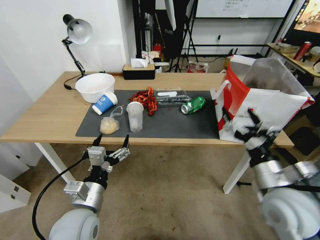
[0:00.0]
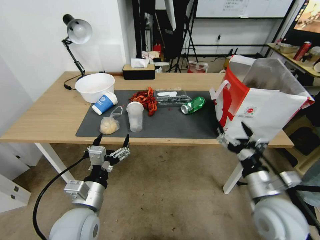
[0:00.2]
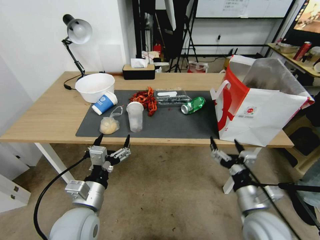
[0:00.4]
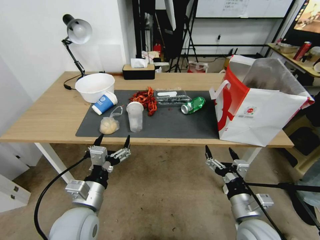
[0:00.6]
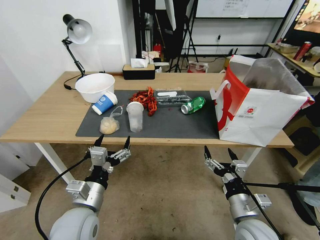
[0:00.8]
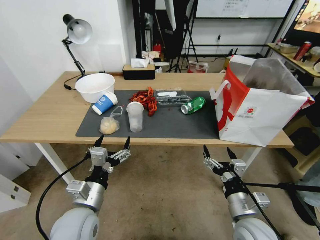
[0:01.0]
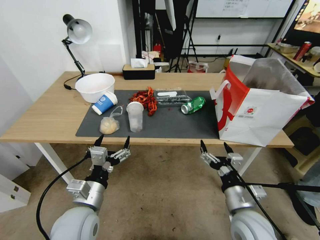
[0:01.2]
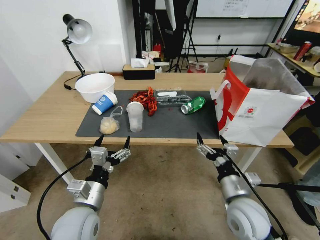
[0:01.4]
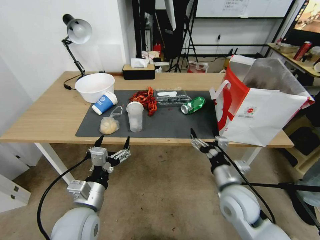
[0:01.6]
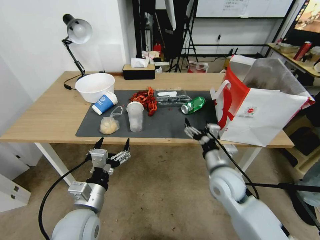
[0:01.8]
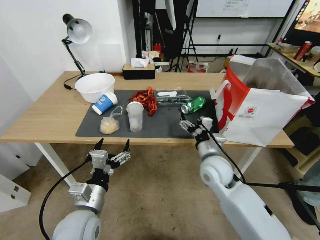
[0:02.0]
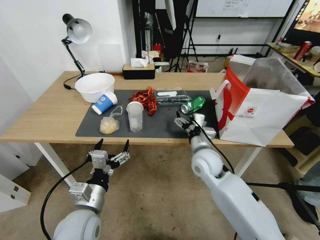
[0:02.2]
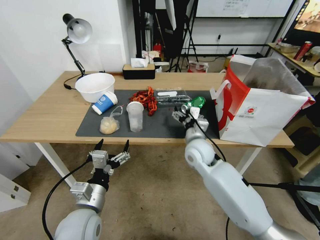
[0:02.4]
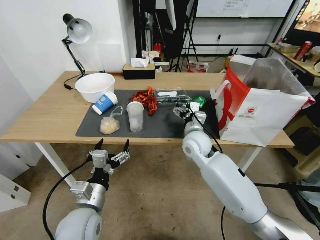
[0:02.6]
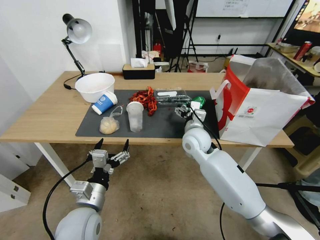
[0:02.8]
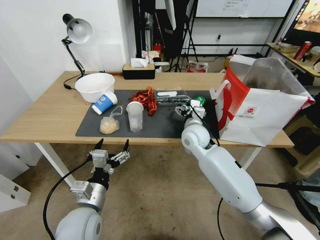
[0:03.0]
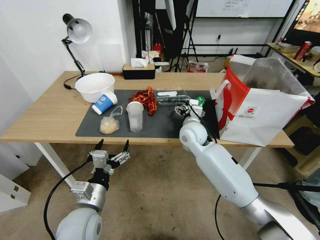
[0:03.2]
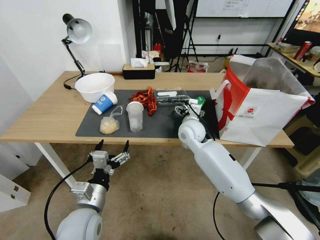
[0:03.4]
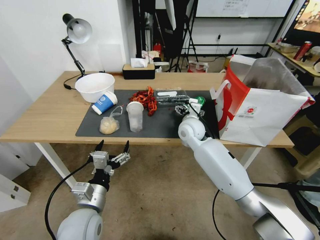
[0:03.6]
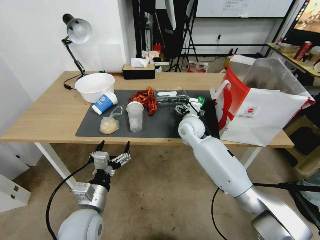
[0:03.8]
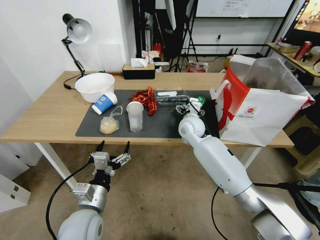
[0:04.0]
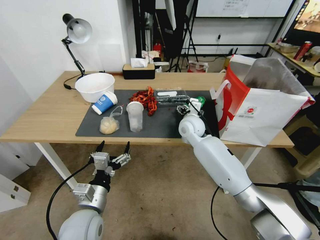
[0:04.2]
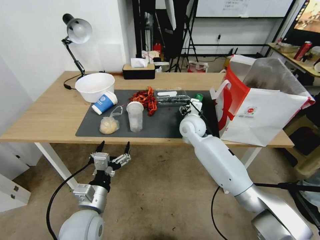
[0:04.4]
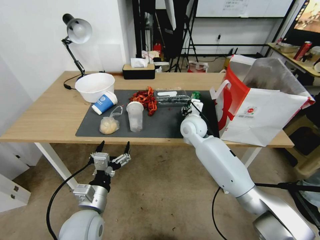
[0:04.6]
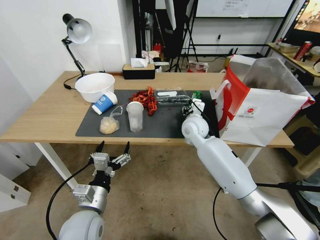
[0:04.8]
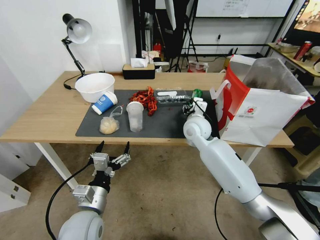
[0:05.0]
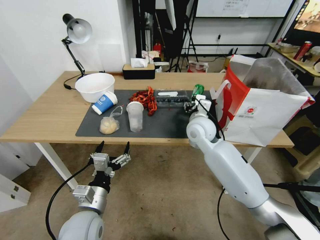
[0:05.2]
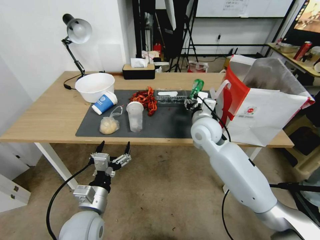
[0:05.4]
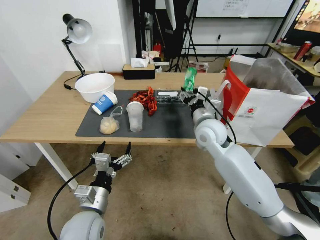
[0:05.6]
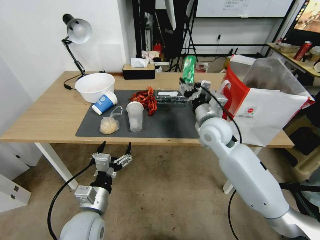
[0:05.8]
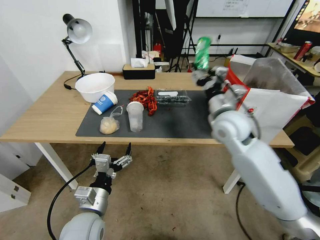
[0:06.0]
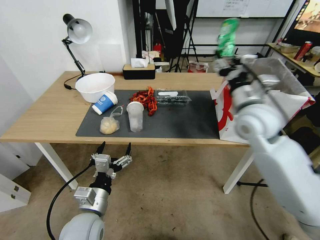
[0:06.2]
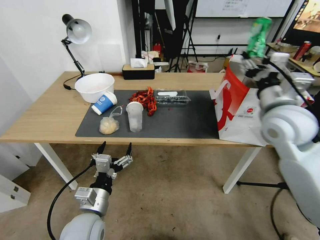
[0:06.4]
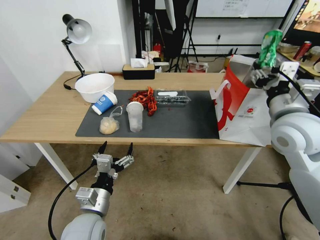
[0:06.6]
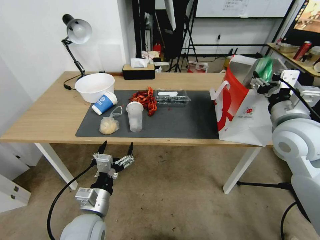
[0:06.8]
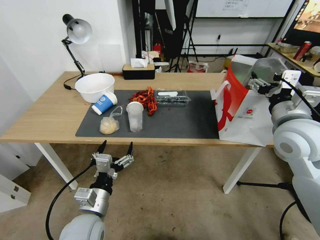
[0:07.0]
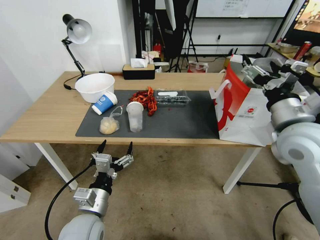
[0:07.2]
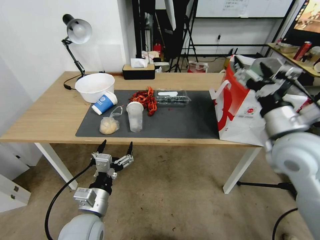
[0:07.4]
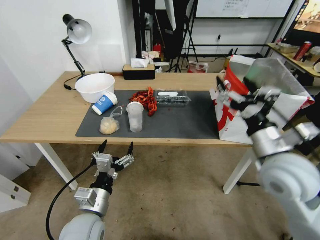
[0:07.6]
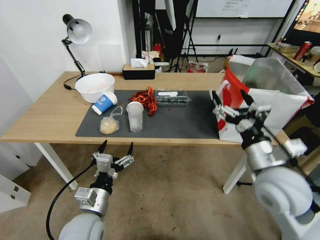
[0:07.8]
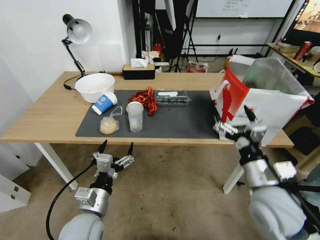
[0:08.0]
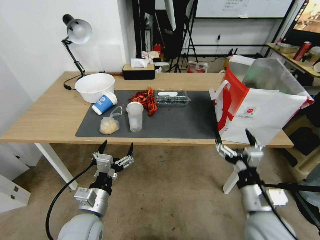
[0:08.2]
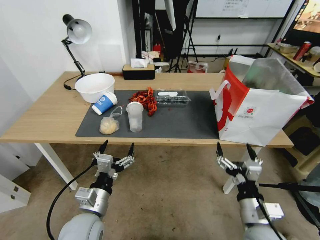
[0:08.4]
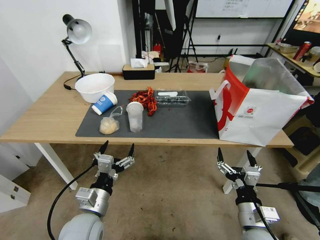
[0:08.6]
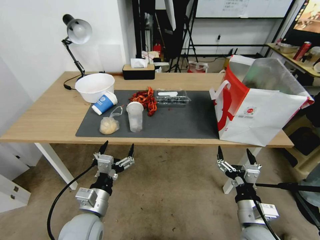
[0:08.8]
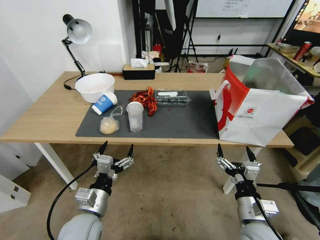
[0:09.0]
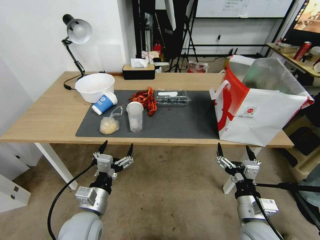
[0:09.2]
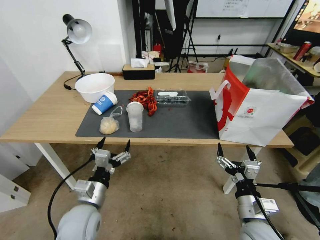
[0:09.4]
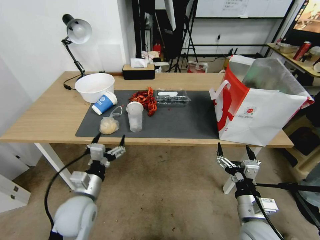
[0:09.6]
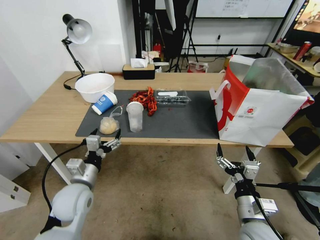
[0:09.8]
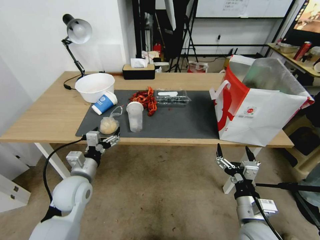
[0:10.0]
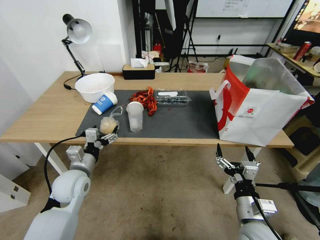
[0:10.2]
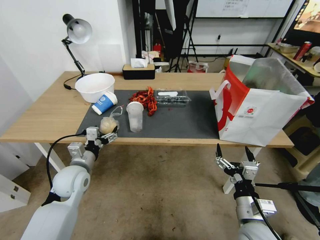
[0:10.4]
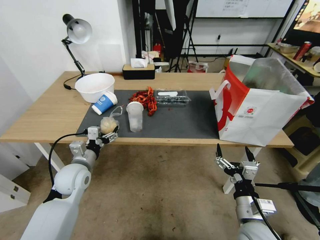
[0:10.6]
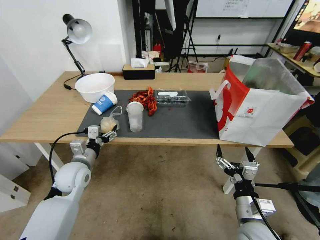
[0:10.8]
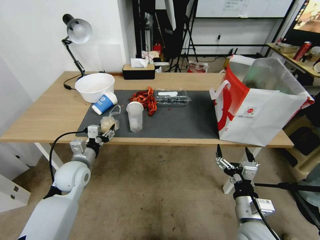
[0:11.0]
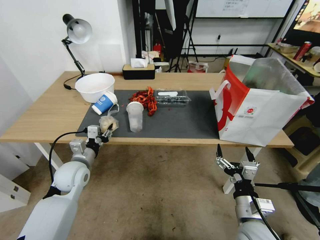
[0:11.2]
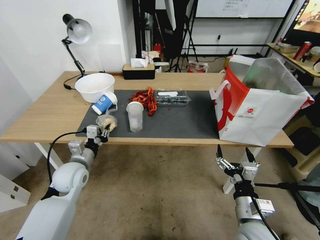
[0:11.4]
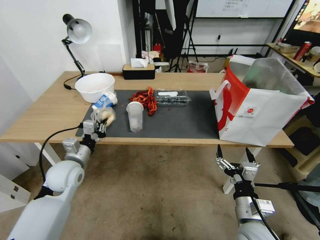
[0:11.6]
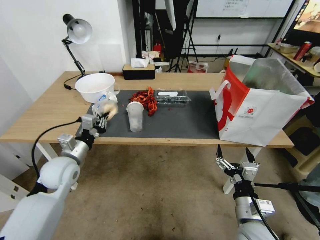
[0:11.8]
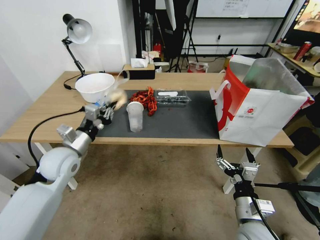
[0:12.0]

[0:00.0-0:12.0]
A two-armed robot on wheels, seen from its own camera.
0:00.0 to 0:01.6: The right gripper heads downward and to the left, covering some 10 cm.
0:01.6 to 0:03.0: The right gripper moves forward and to the left, approximately 20 cm.
0:03.0 to 0:04.4: The grippers stay close to where they were, moving slightly.
0:04.4 to 0:06.0: The right gripper shifts about 15 cm upward, backward and to the right.
0:06.0 to 0:07.6: The right gripper goes approximately 15 cm backward and to the right, and opens.
0:07.6 to 0:09.0: The right gripper travels downward and backward by approximately 20 cm.
0:09.0 to 0:10.4: The left gripper heads forward and to the left, covering some 15 cm.
0:10.4 to 0:12.0: The left gripper heads upward, covering roughly 5 cm, and closes.

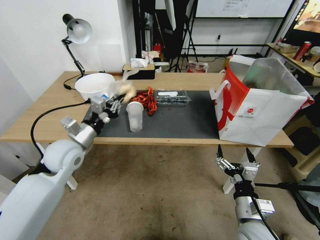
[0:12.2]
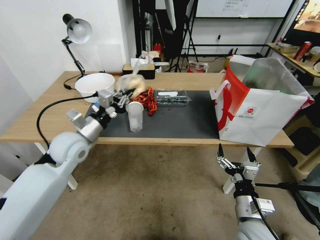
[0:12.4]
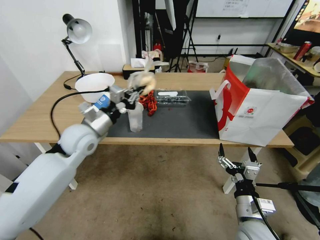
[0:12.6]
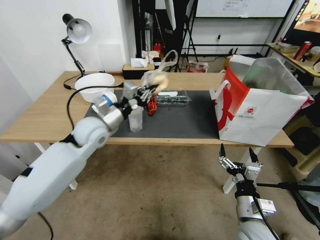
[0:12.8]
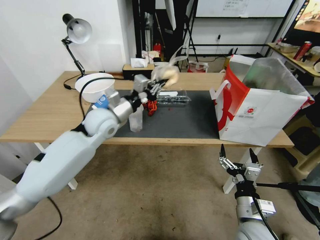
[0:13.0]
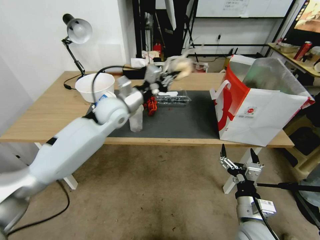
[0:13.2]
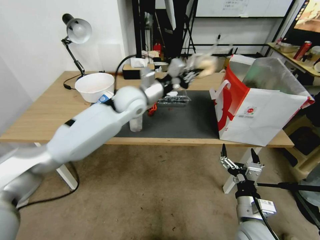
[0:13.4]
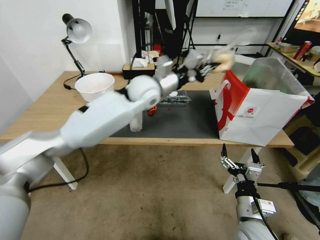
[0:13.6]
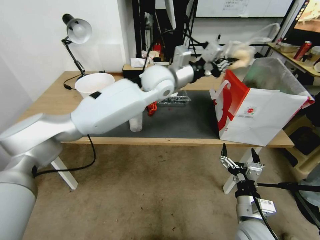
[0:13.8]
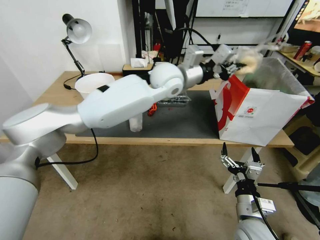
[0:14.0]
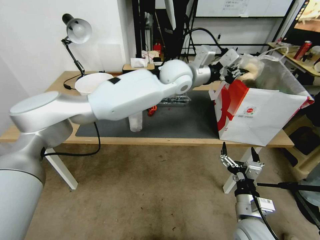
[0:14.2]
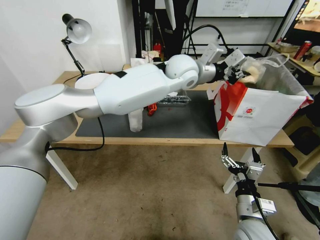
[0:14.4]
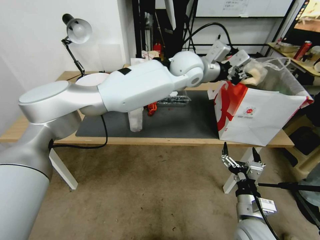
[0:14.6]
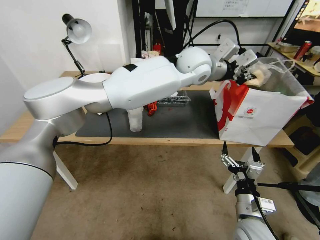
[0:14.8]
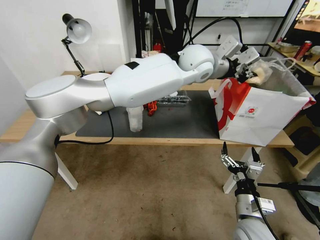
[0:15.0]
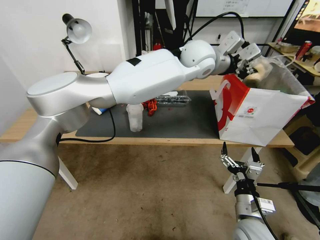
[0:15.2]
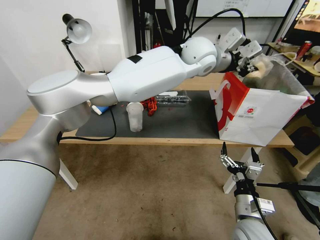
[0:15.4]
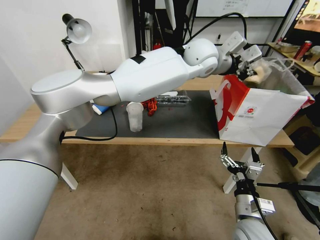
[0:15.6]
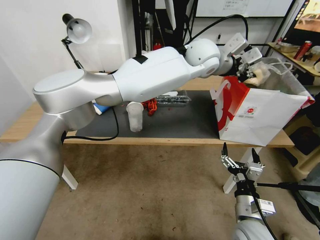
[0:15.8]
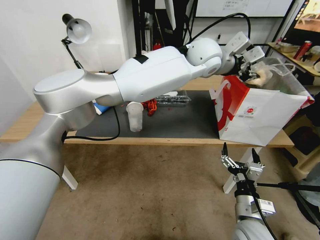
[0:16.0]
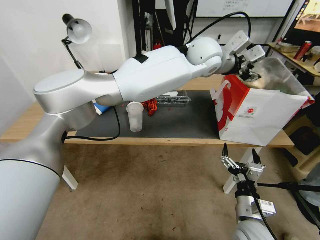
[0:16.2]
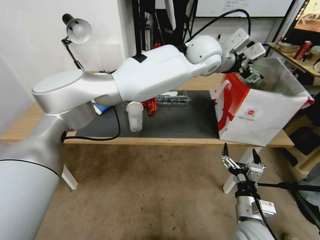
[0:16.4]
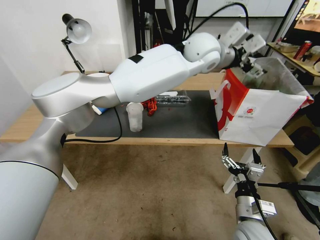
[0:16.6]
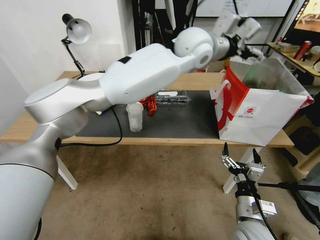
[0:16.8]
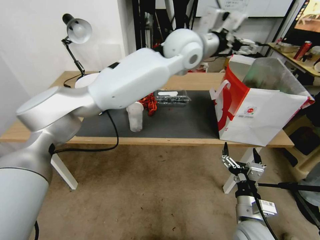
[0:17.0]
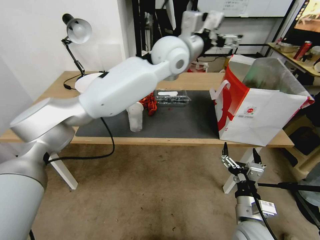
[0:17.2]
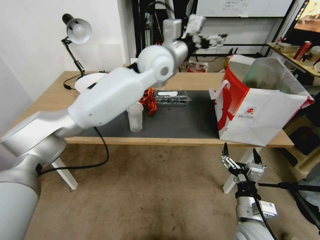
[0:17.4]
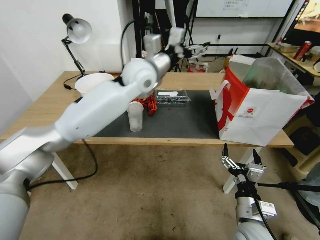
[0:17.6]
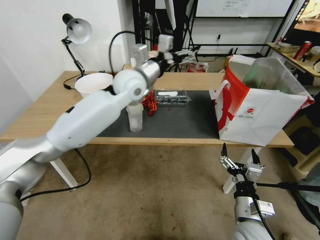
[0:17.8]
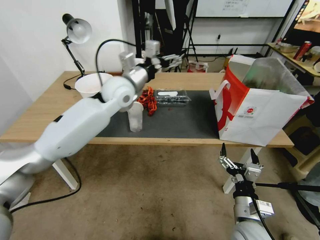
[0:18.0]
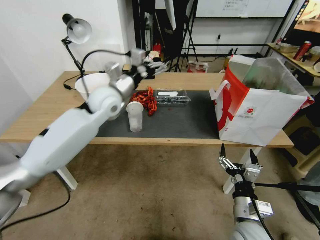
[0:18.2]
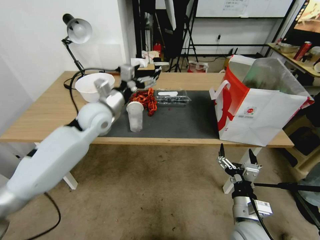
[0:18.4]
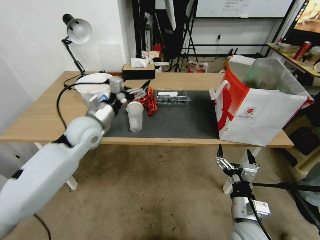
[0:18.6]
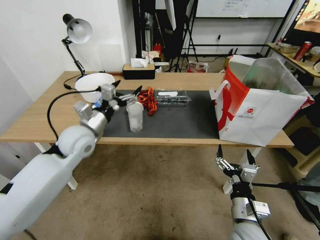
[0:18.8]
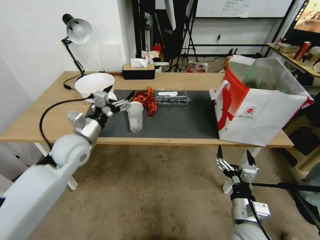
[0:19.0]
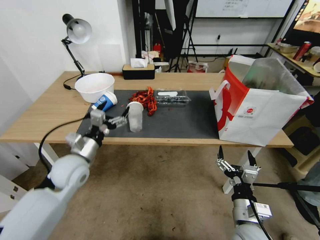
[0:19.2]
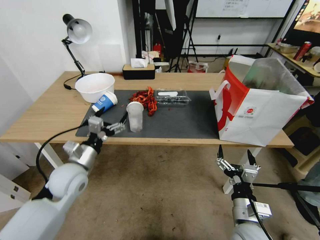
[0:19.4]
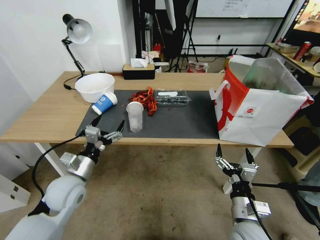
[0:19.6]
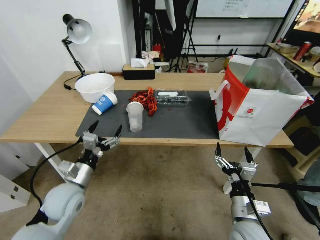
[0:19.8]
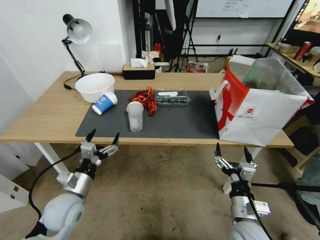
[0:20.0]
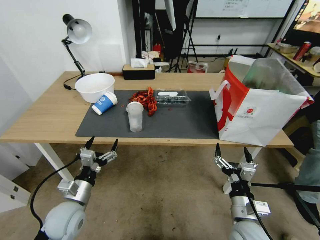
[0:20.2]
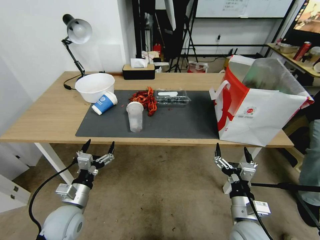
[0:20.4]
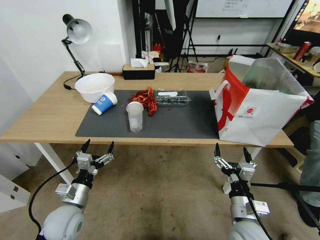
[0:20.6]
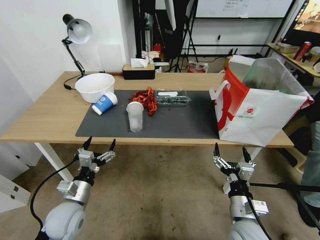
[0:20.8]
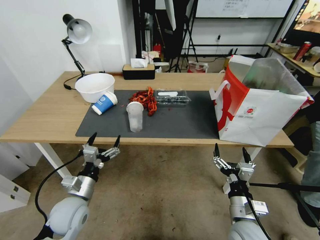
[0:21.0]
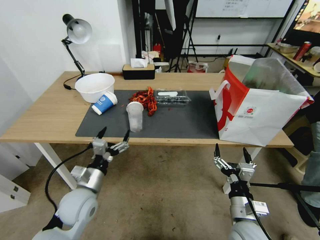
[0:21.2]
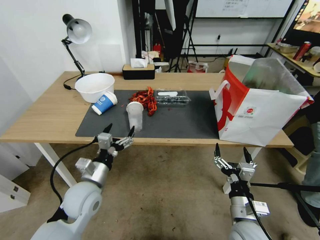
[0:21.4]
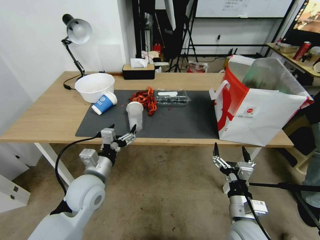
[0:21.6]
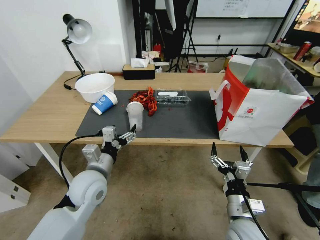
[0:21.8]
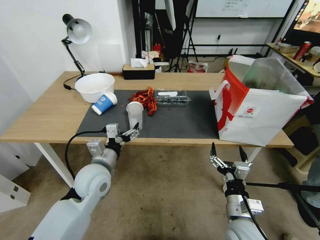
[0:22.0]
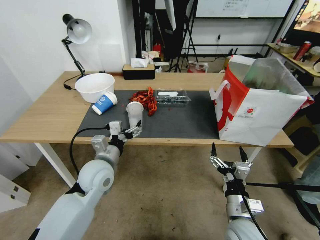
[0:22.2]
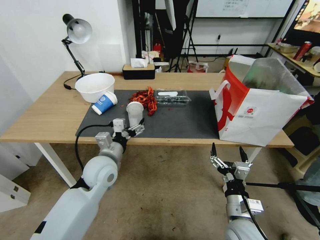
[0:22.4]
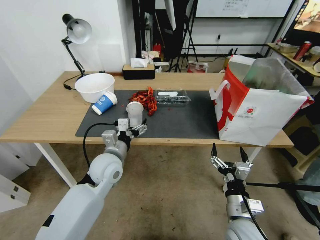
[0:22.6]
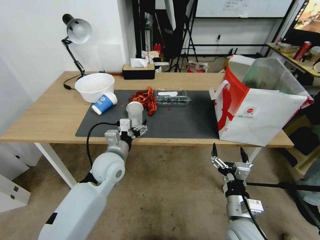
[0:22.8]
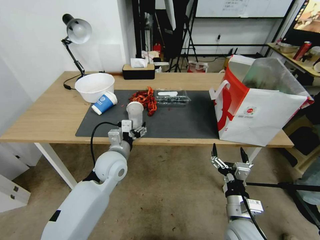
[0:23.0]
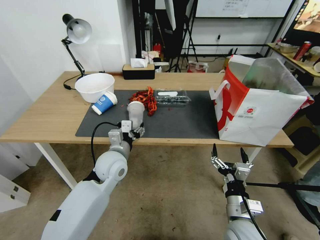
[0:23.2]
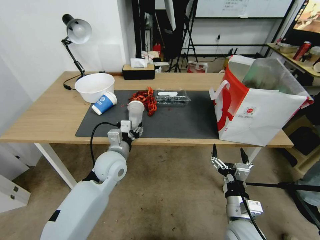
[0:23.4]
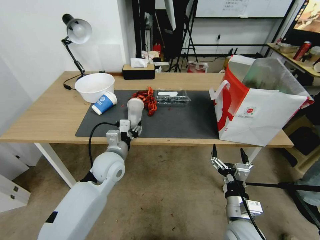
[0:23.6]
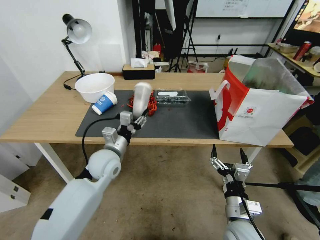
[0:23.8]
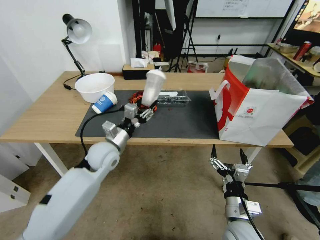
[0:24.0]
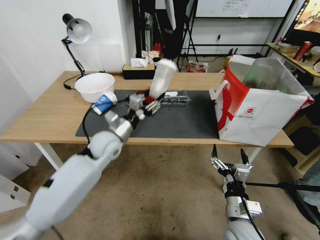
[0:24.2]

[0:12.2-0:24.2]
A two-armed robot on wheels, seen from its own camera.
0:12.2 to 0:13.8: The left gripper is displaced to the right, forward and upward by some 35 cm.
0:13.8 to 0:15.2: The left gripper moves to the right and upward, roughly 10 cm.
0:15.2 to 0:16.6: The left gripper opens.
0:16.6 to 0:18.2: The left gripper moves to the left and downward, roughly 30 cm.
0:18.2 to 0:19.8: The left gripper heads backward, downward and to the left, covering about 30 cm.
0:21.2 to 0:22.6: The left gripper moves forward, to the right and upward, about 15 cm.
0:22.6 to 0:24.2: The left gripper moves forward, roughly 5 cm, and closes.
